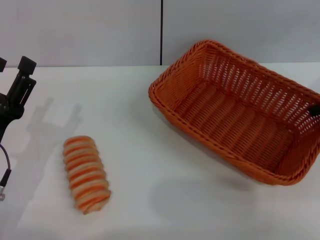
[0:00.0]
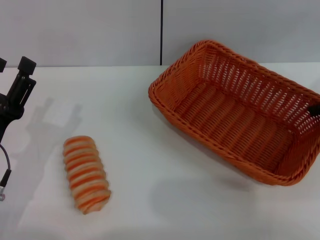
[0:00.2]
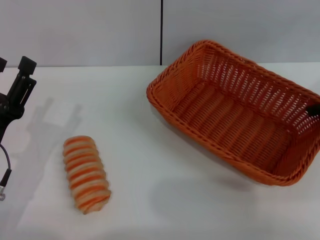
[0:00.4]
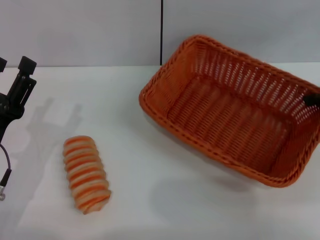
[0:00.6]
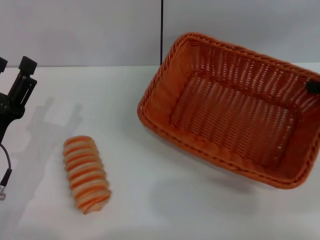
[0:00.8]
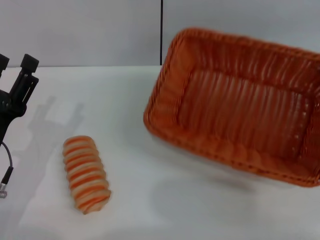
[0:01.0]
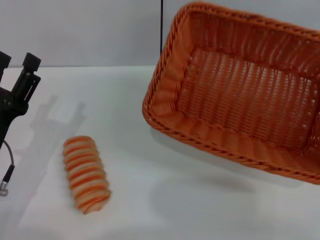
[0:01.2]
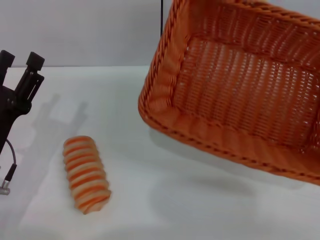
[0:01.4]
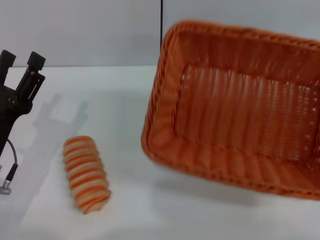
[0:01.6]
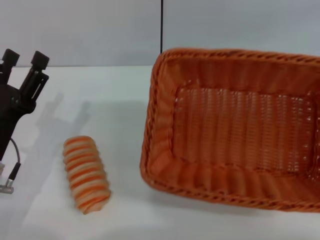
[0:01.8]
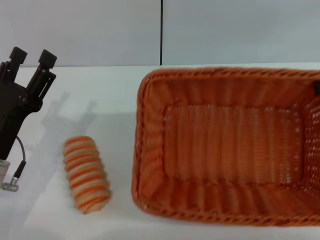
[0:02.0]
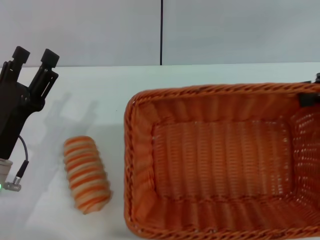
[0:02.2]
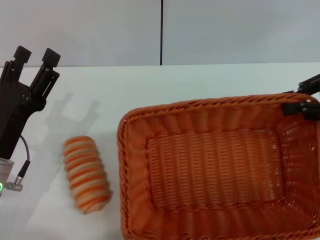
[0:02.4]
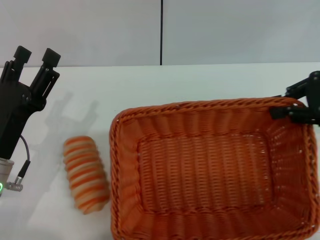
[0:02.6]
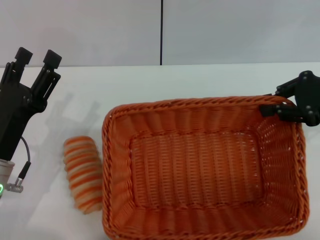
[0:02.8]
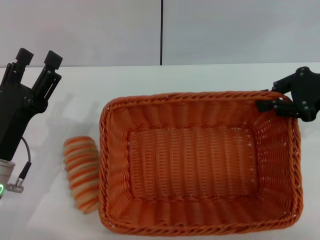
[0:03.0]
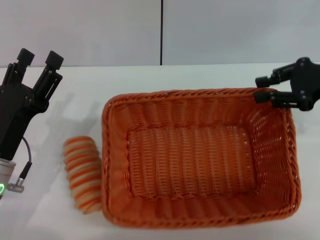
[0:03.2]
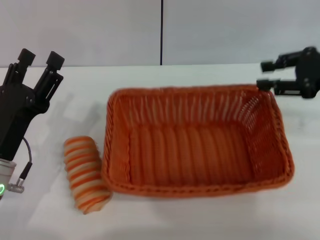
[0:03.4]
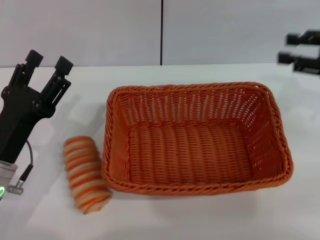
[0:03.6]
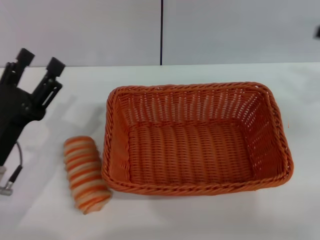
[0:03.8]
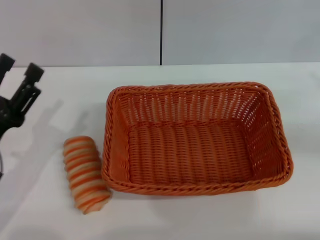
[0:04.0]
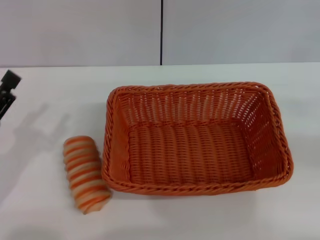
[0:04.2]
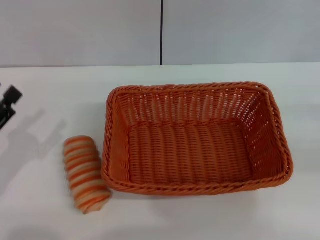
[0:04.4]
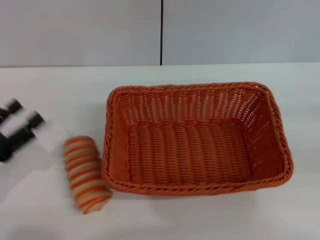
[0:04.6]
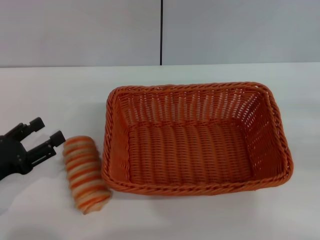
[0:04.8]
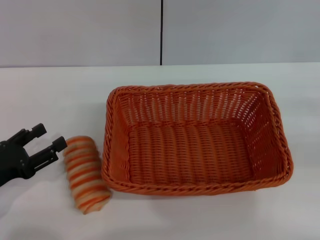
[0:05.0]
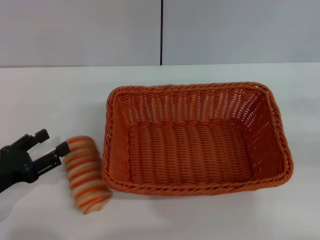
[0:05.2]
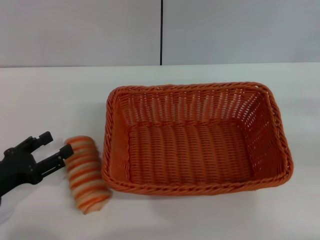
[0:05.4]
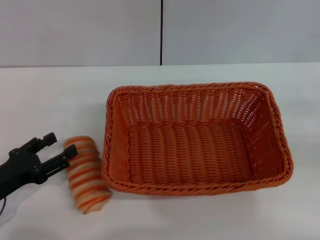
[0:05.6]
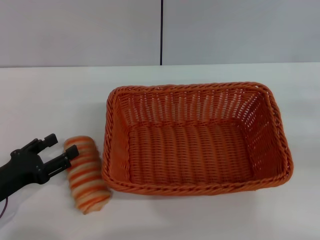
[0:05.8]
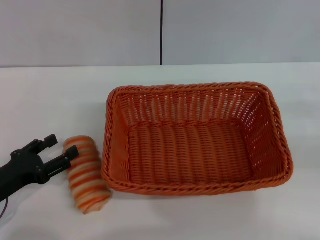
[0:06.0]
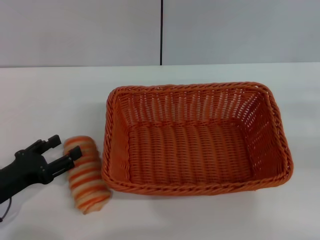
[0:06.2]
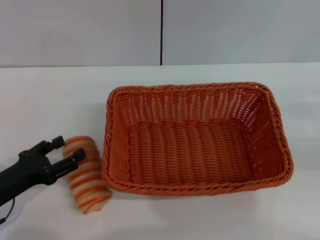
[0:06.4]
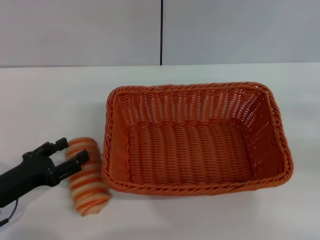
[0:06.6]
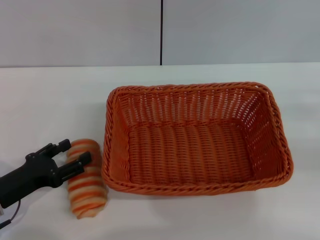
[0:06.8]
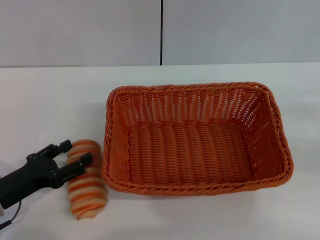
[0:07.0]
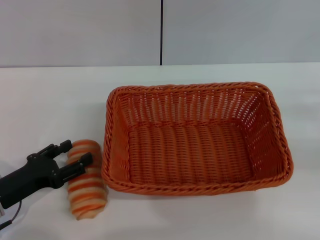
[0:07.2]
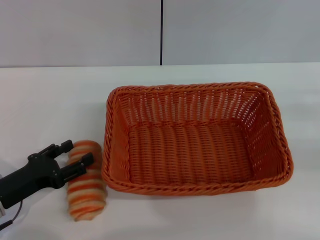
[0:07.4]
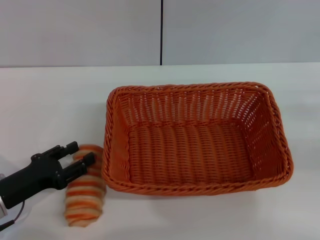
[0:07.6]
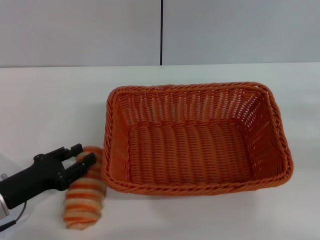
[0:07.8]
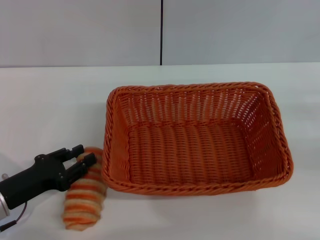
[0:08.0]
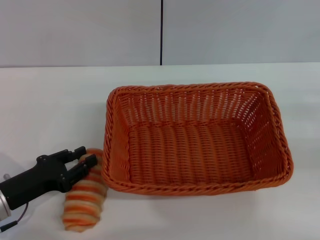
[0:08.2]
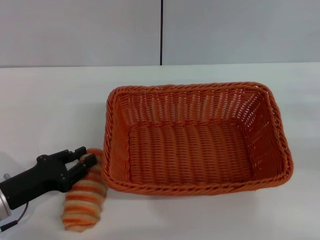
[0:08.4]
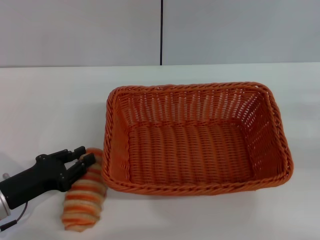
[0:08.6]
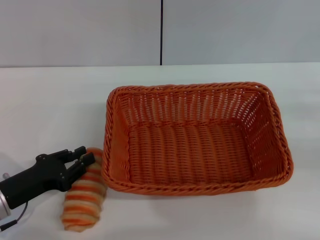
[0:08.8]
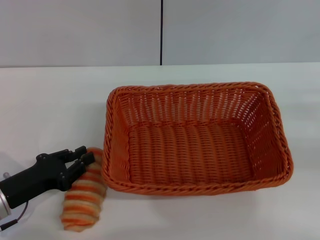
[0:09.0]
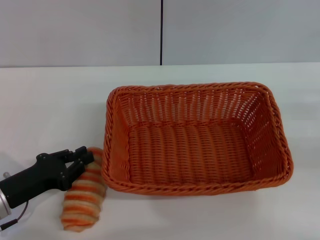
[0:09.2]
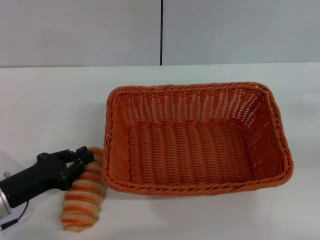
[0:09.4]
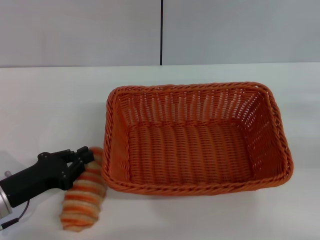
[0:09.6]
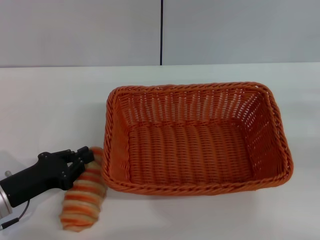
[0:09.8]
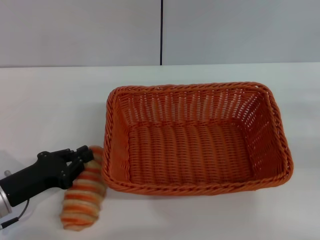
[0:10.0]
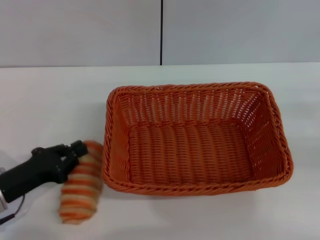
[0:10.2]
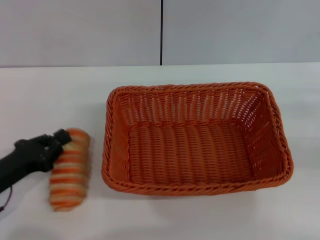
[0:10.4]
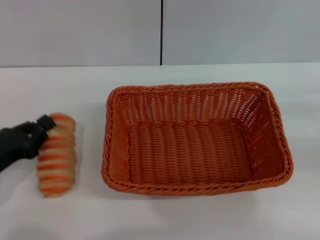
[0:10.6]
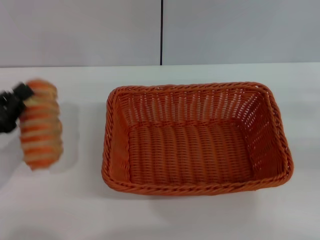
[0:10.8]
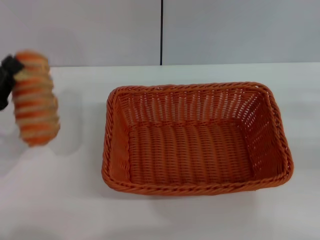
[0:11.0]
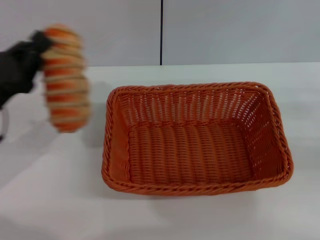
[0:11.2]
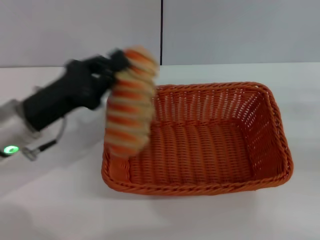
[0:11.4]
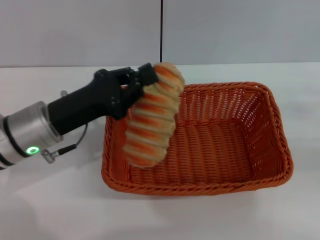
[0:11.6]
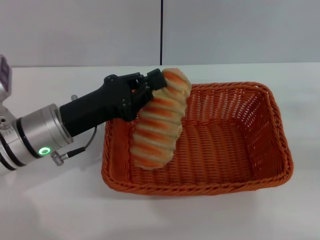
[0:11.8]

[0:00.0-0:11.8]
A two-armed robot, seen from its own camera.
Step, 0:01.2 to 0:03.4: Place the light basket in the center of view with the right gripper.
Step, 0:03.6 to 0:10.8: Pick up the long bread with the left gripper.
0:00.0 to 0:01.4: The right gripper heads to the right and backward, covering about 10 cm, and closes up.
0:01.4 to 0:03.0: The right gripper shifts about 10 cm to the left.
0:03.0 to 0:04.4: The right gripper goes roughly 15 cm to the right and backward, and opens up, while the left gripper moves to the left, roughly 10 cm.
0:04.4 to 0:06.0: The left gripper shifts by about 5 cm.
0:06.0 to 0:07.4: The grippers stay close to where they were, moving slightly.
0:07.4 to 0:08.8: The left gripper closes up.
0:08.8 to 0:10.4: The grippers make only small movements.
0:10.4 to 0:11.8: The left gripper goes approximately 15 cm to the right, forward and upward.

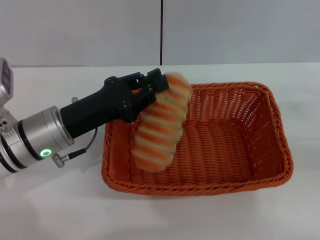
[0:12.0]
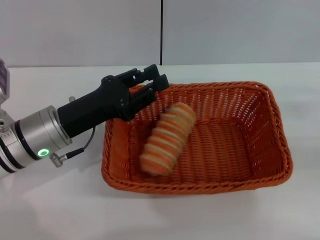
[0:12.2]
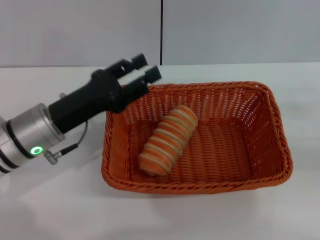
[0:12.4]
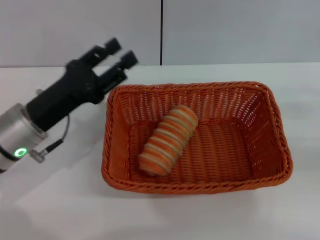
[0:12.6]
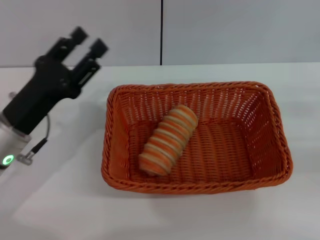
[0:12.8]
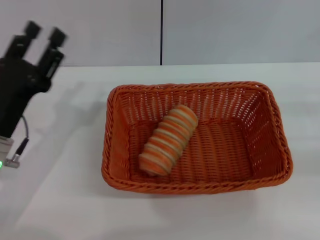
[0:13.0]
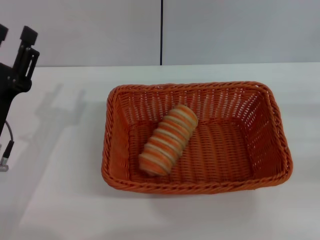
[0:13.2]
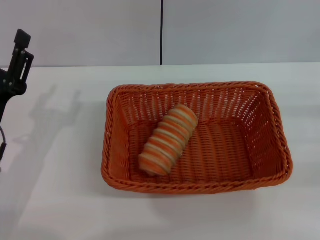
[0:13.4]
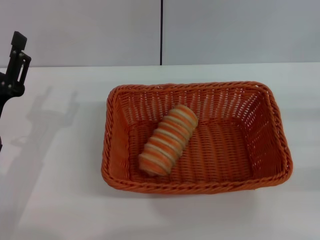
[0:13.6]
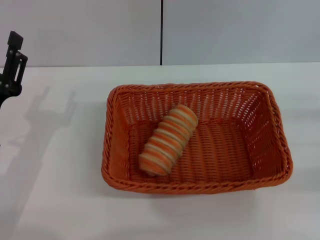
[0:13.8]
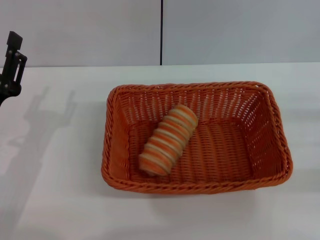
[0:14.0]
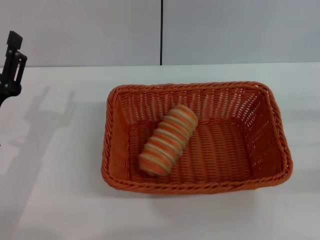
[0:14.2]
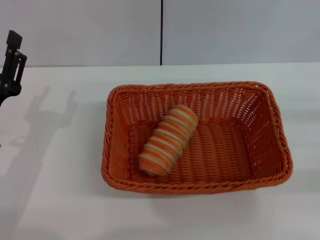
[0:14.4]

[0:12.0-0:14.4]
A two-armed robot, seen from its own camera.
0:12.0 to 0:13.2: The left gripper travels backward and to the left by some 10 cm, and opens up.
0:13.2 to 0:14.4: The grippers move only a little.
